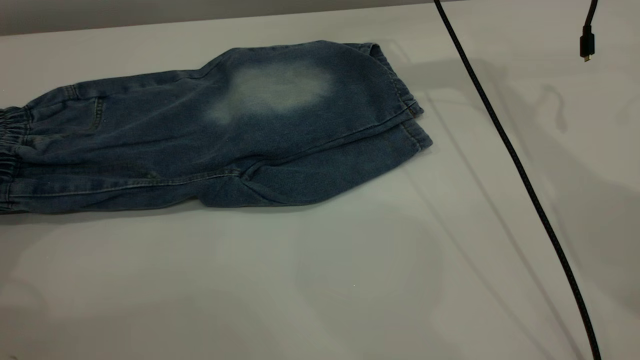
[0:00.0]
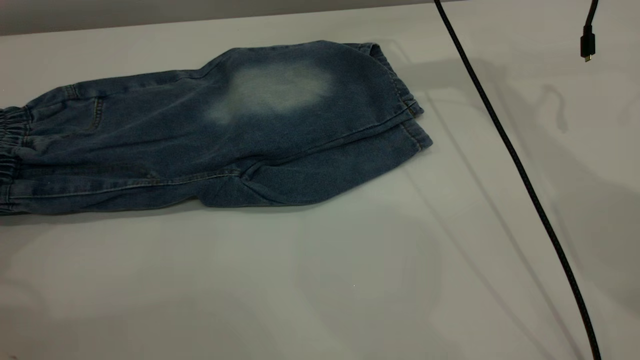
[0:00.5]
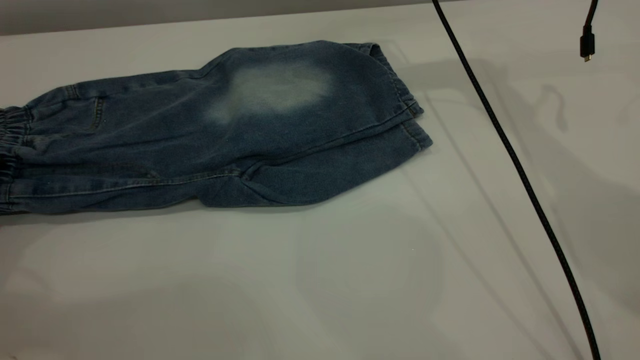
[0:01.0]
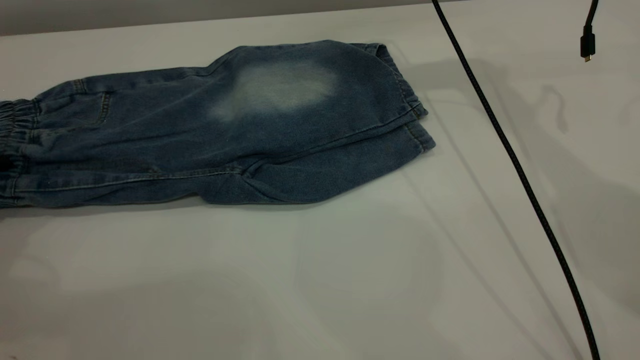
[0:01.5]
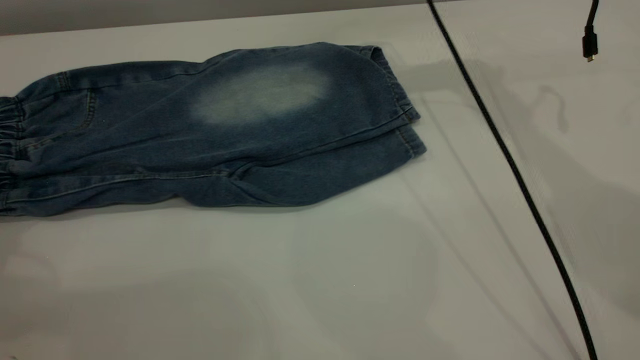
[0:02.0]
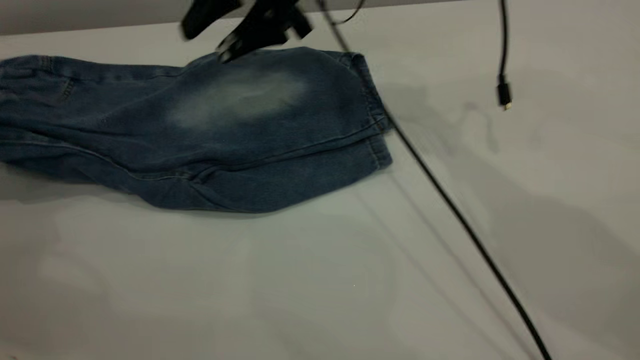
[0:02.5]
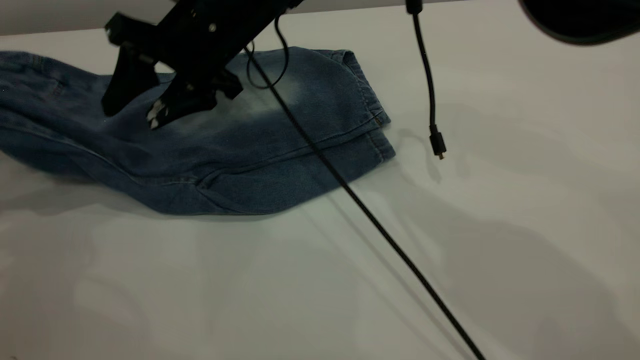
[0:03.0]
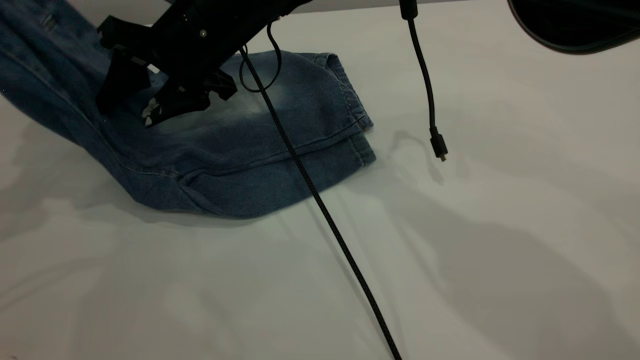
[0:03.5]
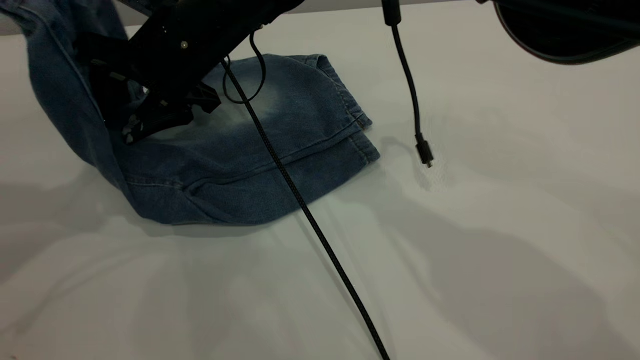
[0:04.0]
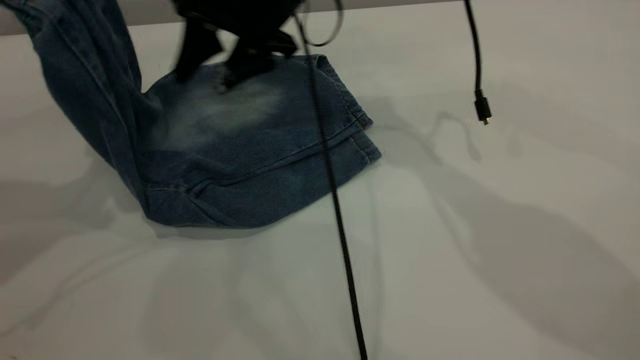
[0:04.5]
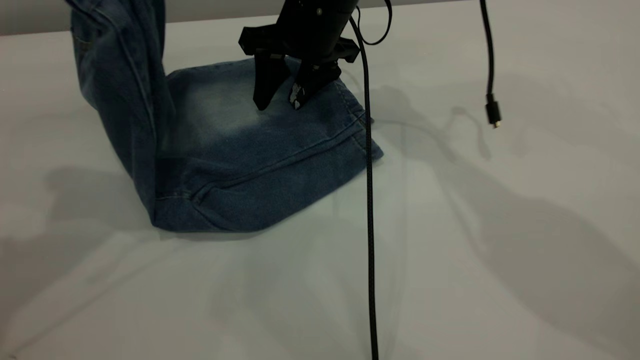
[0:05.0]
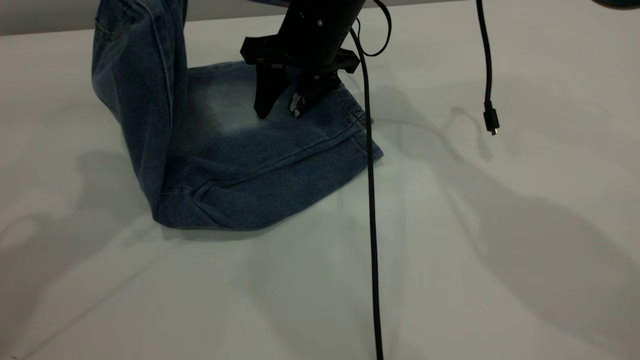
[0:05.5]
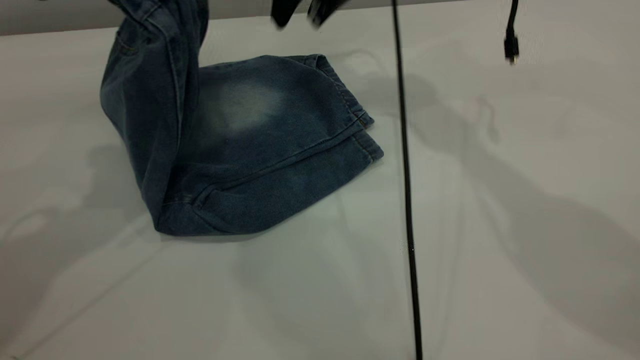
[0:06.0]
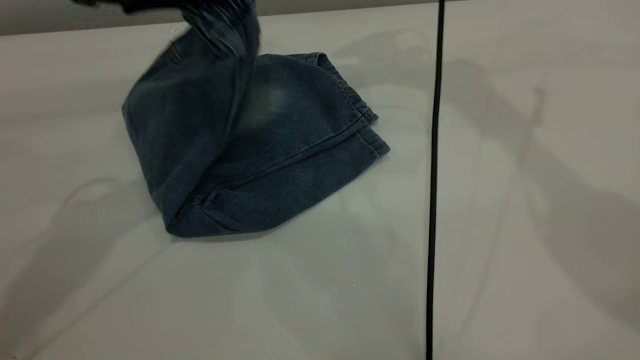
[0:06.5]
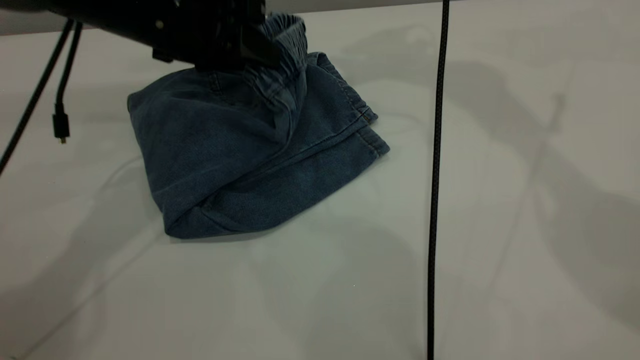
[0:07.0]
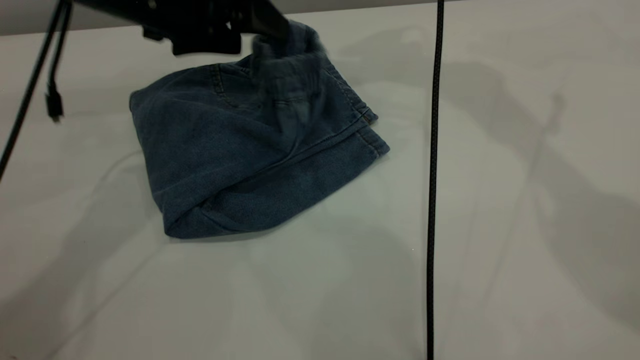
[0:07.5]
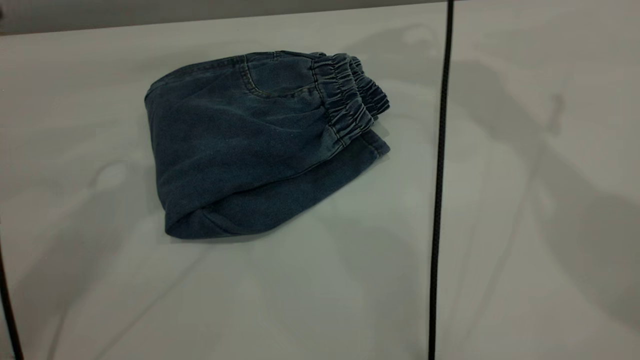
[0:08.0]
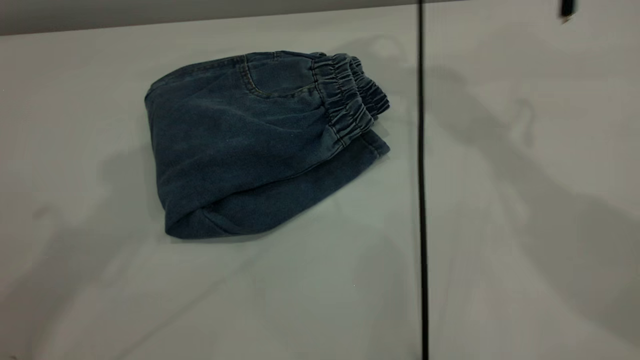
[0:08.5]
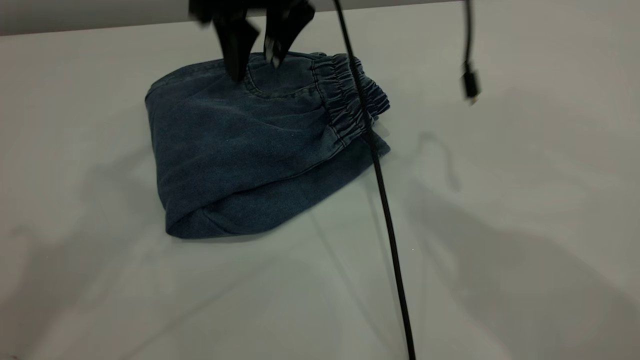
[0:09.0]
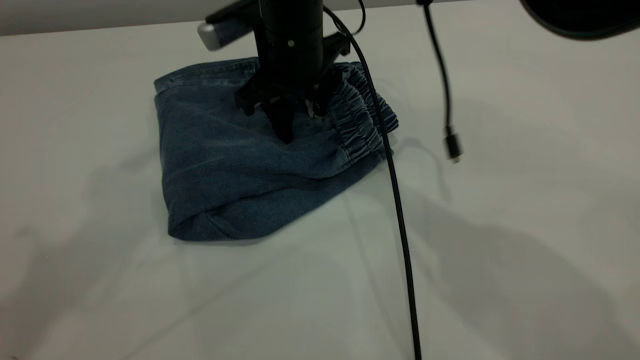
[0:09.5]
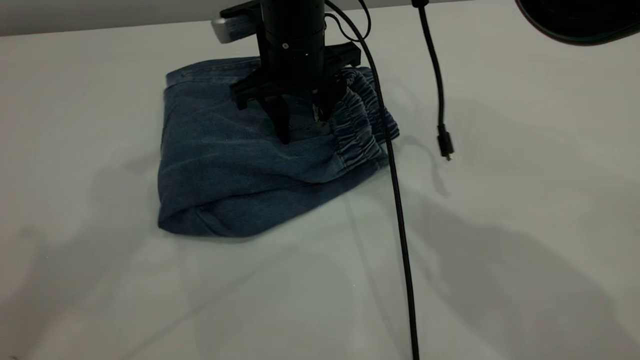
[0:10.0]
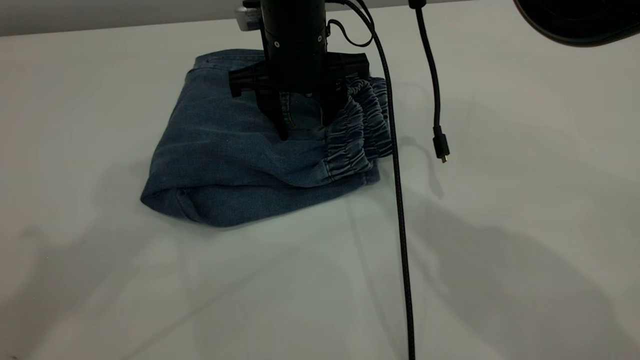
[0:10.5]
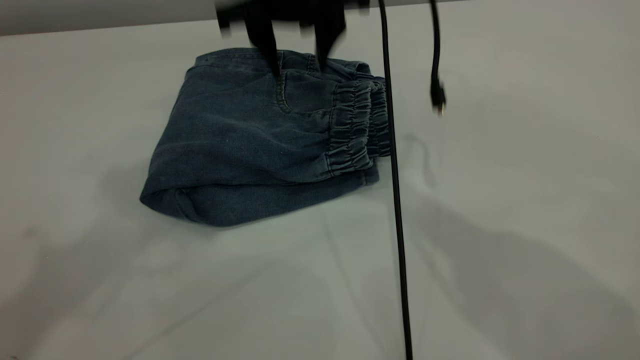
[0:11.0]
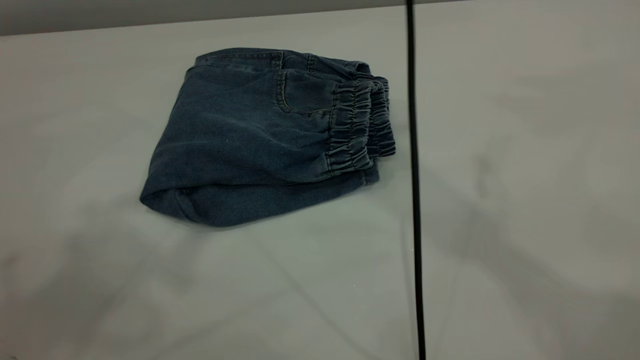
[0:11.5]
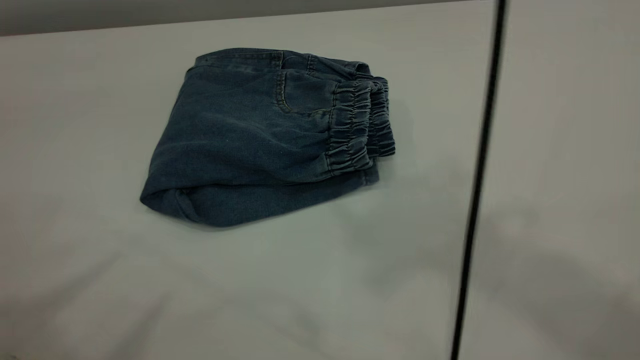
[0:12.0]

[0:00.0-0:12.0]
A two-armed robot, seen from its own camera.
Step, 0:00.0 to 0:08.0: Fold the pants from left to right.
0:00.0 to 0:02.0: The left gripper closes its fingers.
0:02.0 to 0:04.0: The right gripper heads to the left, backward and downward, covering approximately 20 cm; the left gripper travels upward and to the right by approximately 20 cm.
0:04.0 to 0:06.0: The left gripper shifts about 10 cm to the right; the right gripper goes some 20 cm to the right, forward and upward.
0:06.0 to 0:08.0: The right gripper heads upward and to the right, covering some 15 cm, while the left gripper shifts about 5 cm to the right, reaches some 10 cm downward, then returns, and opens.
0:08.0 to 0:10.0: The left gripper shifts approximately 15 cm upward and backward. The right gripper travels downward and to the left by roughly 25 cm.
0:10.0 to 0:12.0: The left gripper heads backward, covering roughly 15 cm. Meanwhile the right gripper heads upward and backward, covering roughly 50 cm.
